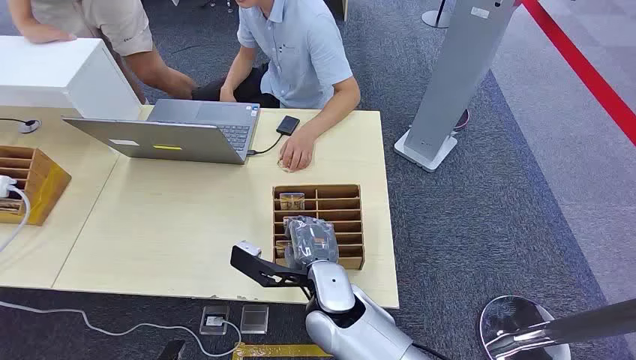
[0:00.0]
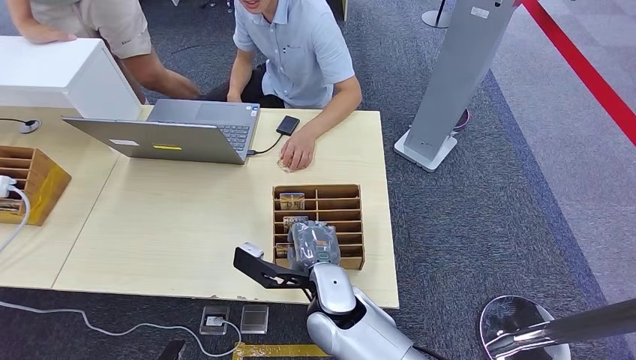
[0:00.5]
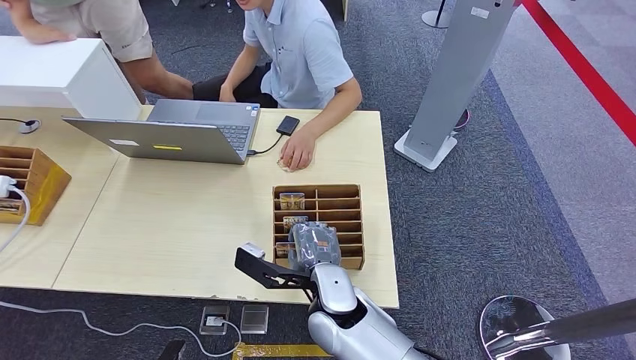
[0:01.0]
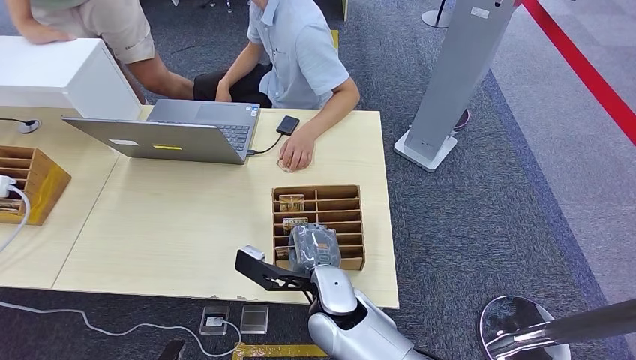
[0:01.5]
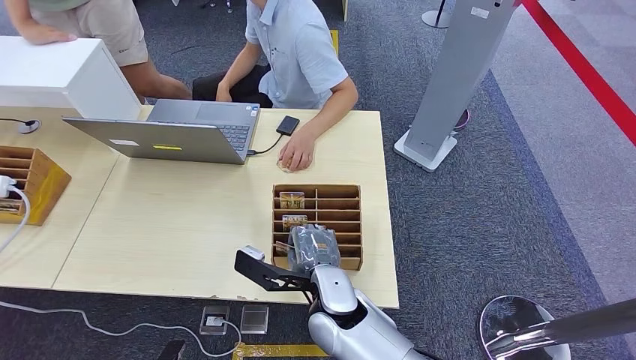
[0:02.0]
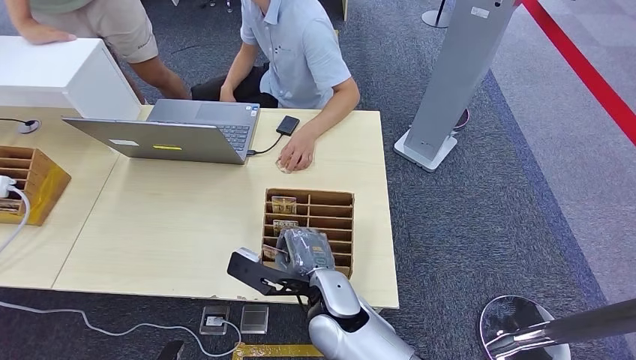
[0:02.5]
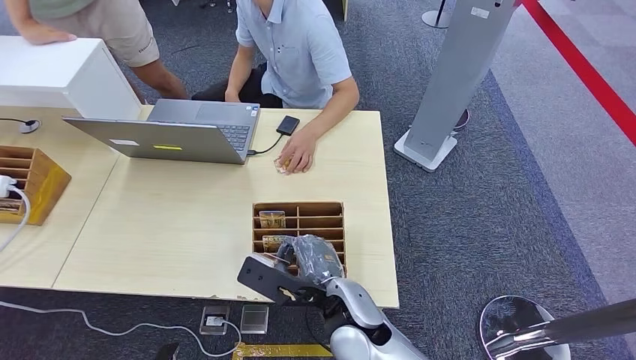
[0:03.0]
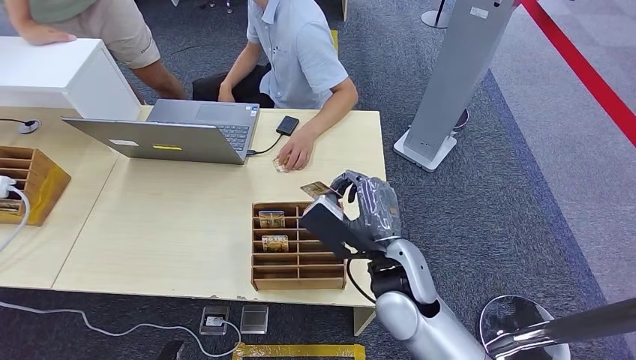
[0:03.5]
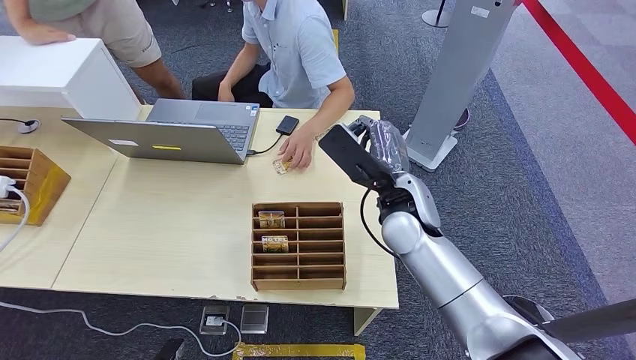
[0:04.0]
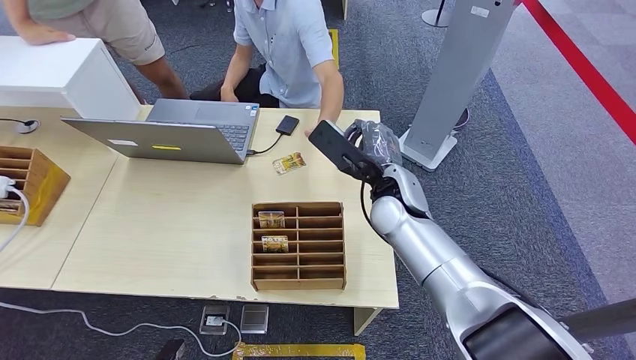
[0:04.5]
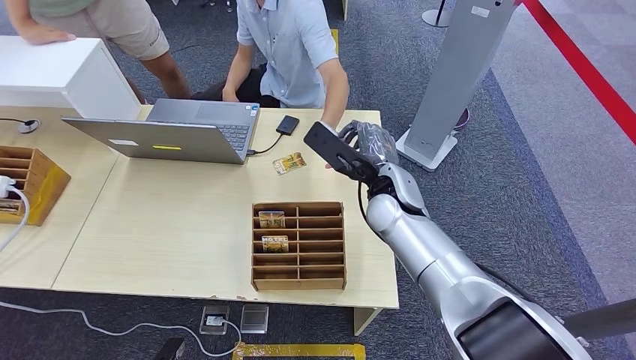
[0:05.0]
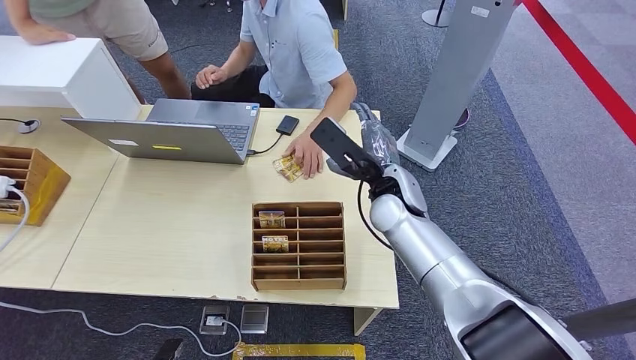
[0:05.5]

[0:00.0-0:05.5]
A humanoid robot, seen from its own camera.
Step, 0:00.0 to 0:03.0: Pick up the key card from the card box.
Step, 0:04.0 to 0:05.0: Hand the key card to the target.
0:02.0 to 0:03.5: The right hand travels to the right and upward by some 10 cm.
0:03.5 to 0:05.5: The right hand shifts about 15 cm forward.
